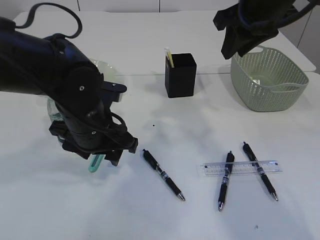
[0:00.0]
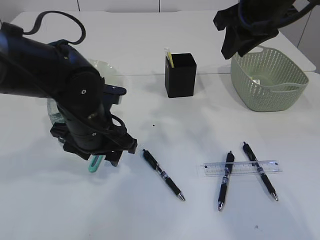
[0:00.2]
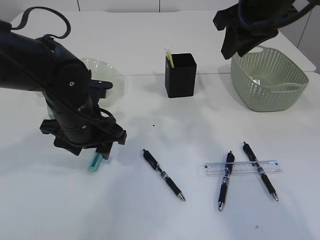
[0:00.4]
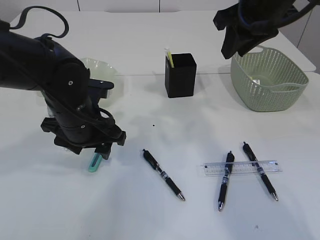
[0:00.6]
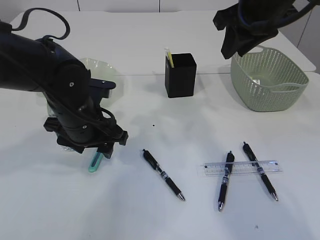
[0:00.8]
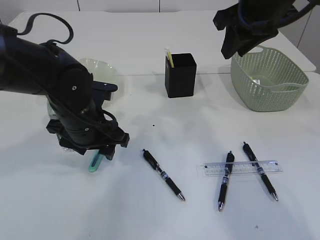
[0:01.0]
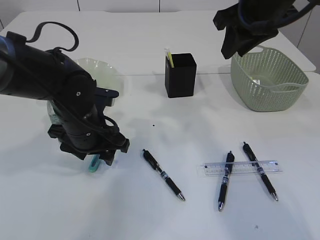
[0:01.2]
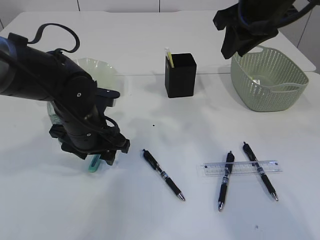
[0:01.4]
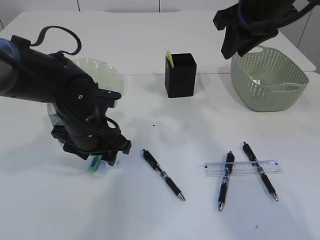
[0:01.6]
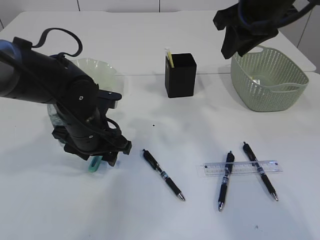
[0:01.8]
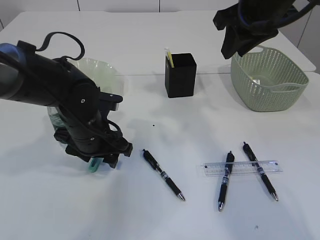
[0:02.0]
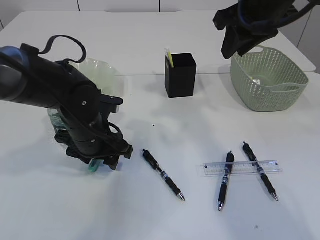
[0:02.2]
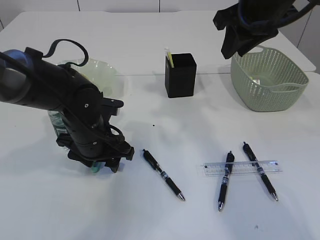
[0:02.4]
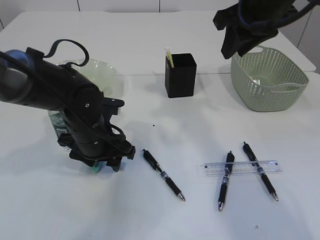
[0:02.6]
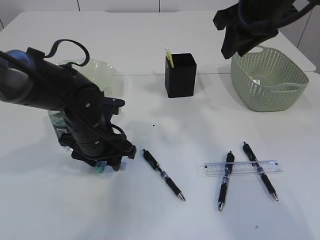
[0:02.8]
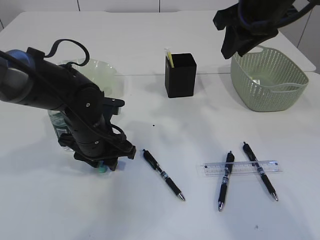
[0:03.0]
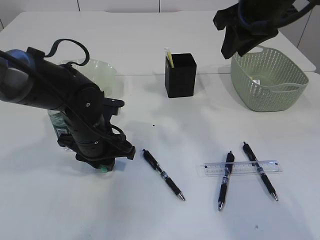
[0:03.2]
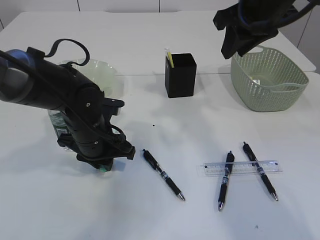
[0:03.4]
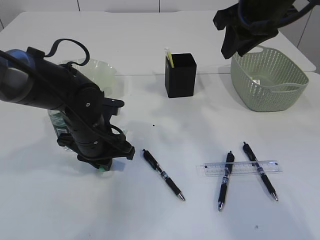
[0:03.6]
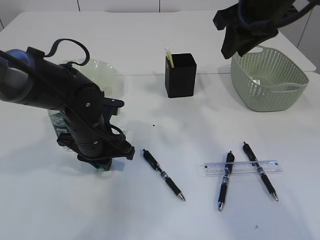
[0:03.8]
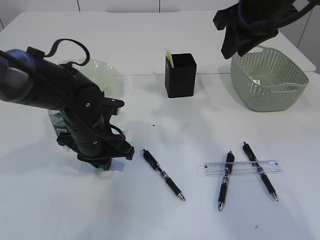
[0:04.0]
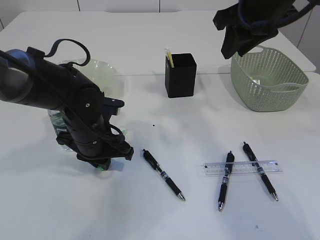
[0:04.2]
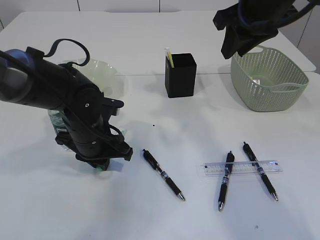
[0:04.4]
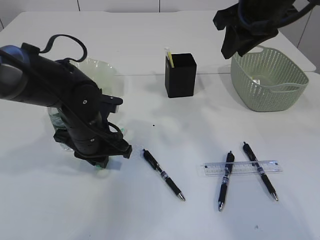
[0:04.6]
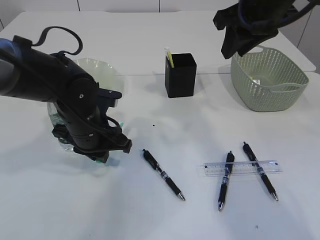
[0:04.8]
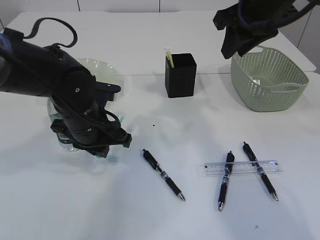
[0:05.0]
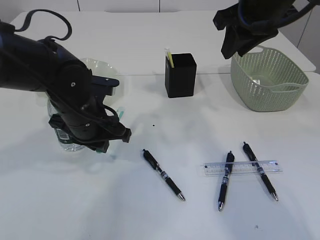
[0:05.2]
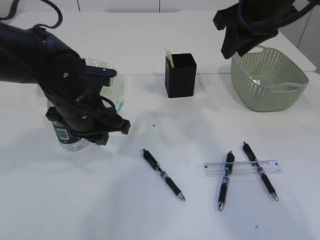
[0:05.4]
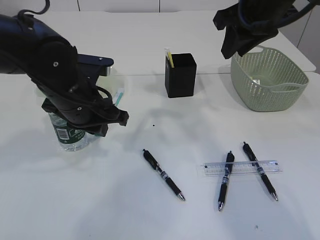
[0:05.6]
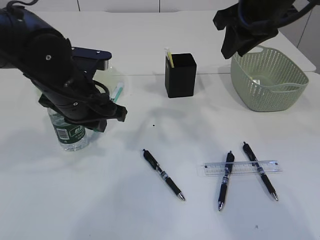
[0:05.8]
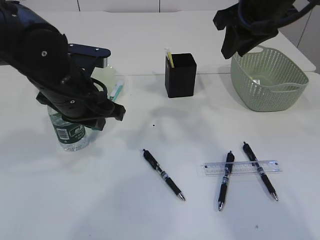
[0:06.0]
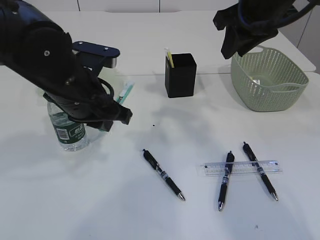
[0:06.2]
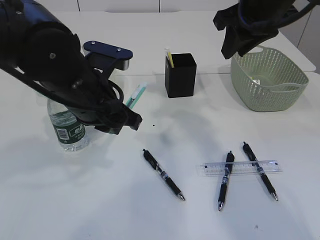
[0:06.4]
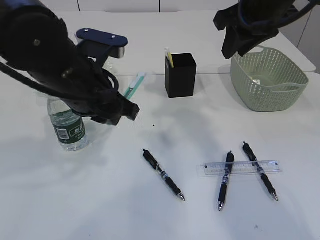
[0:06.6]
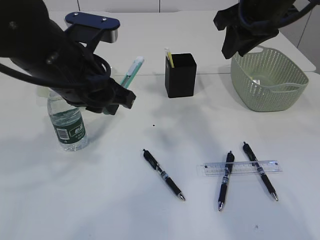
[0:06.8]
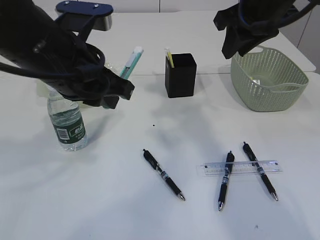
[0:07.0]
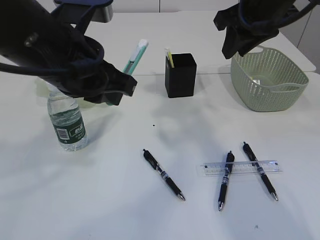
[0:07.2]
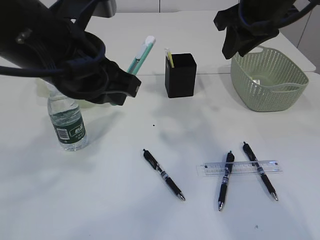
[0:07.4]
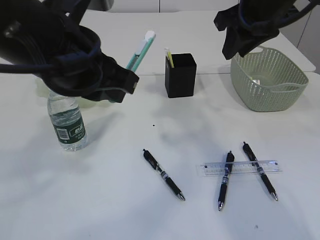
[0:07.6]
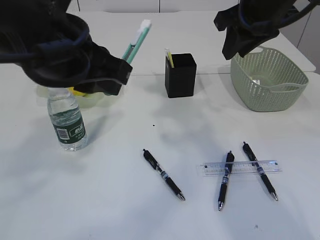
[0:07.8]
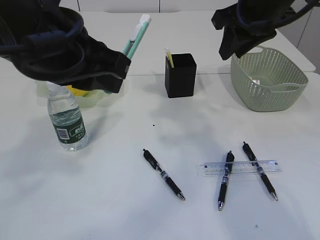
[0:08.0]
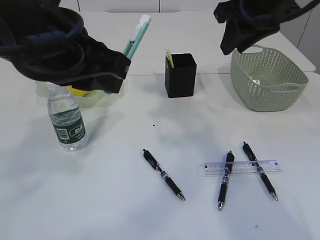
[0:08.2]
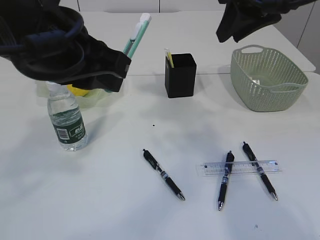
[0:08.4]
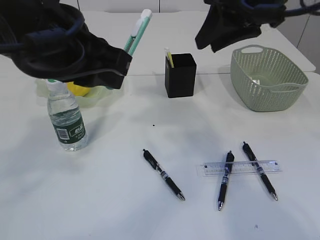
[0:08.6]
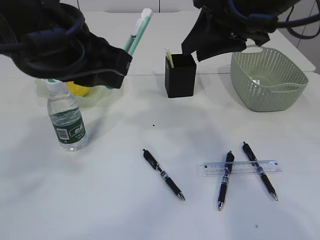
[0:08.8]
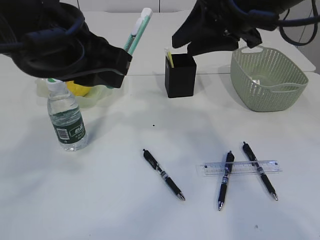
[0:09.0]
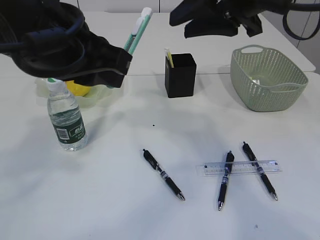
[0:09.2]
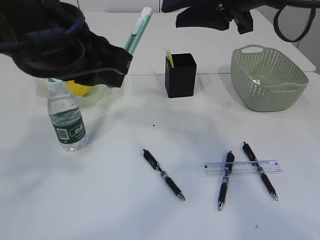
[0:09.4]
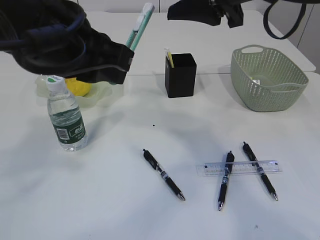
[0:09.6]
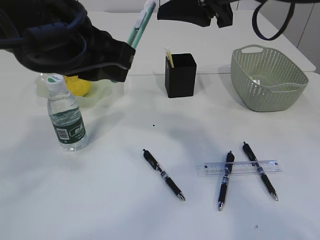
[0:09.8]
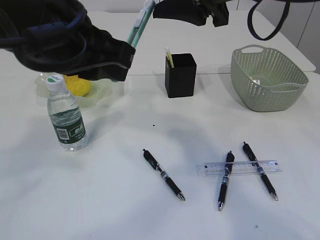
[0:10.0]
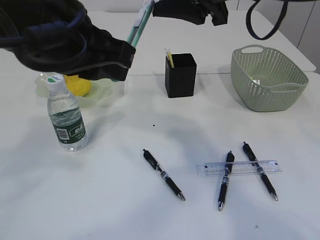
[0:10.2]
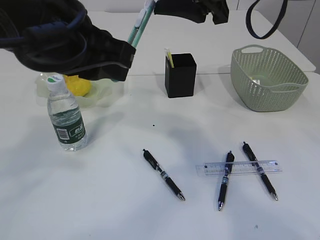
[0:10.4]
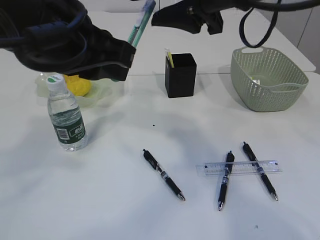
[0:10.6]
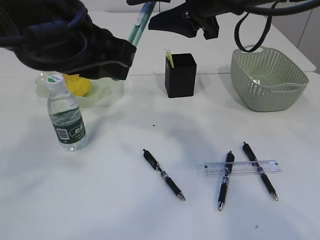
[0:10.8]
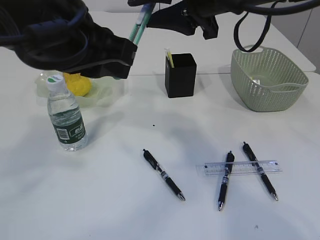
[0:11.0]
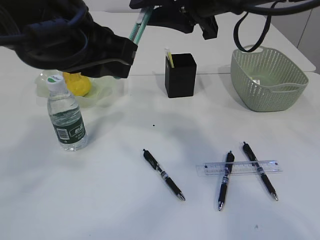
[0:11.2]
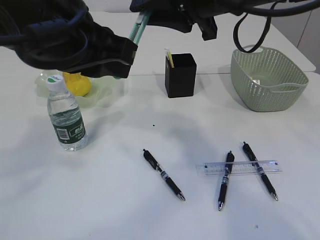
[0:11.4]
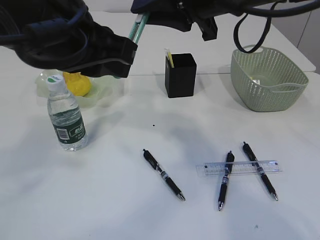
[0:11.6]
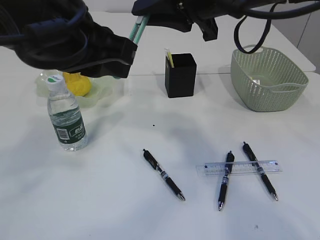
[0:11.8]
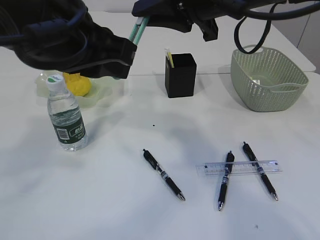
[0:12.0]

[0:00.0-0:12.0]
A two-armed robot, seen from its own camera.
Step, 0:00.0 to 0:05.0: pick up the blue knife.
0:00.0 to 0:03.0: The grippers make only small movements.
0:03.0 to 0:04.4: The left gripper closes its fingers.
0:04.4 to 0:06.0: The left gripper goes approximately 10 cm upward.
0:06.0 to 0:07.6: The left gripper moves upward and backward, roughly 15 cm.
0:07.6 to 0:09.0: The right gripper ends up roughly 5 cm from where it was.
0:10.4 to 0:12.0: The right gripper closes.

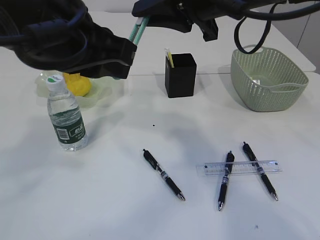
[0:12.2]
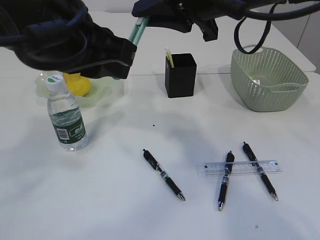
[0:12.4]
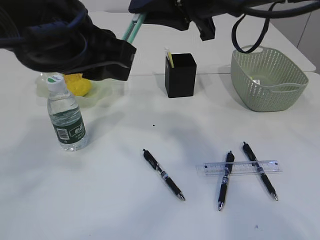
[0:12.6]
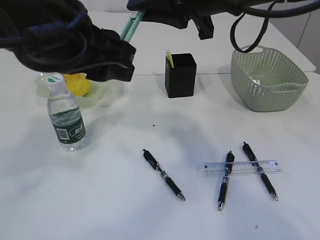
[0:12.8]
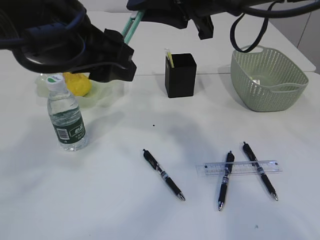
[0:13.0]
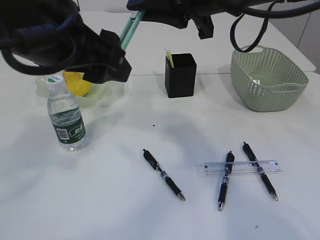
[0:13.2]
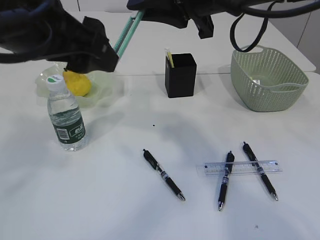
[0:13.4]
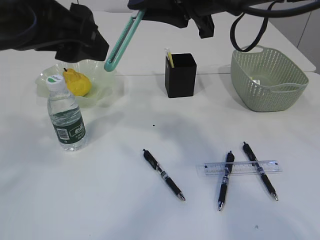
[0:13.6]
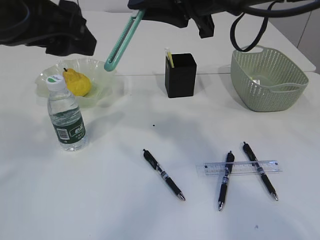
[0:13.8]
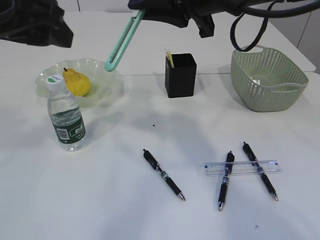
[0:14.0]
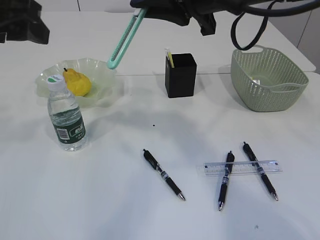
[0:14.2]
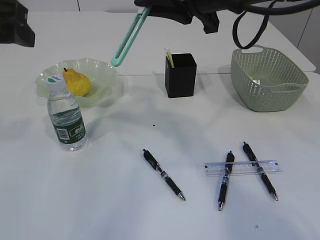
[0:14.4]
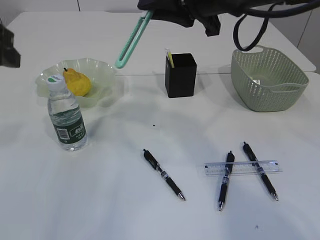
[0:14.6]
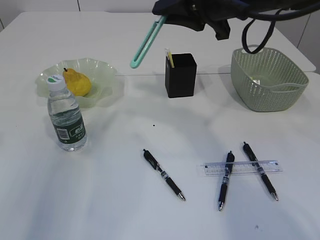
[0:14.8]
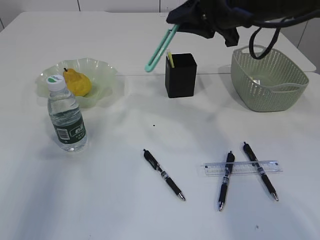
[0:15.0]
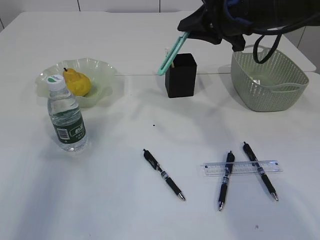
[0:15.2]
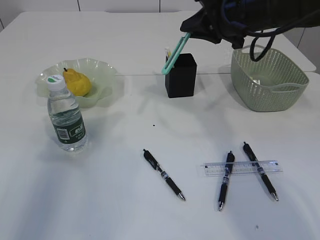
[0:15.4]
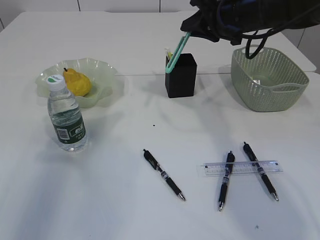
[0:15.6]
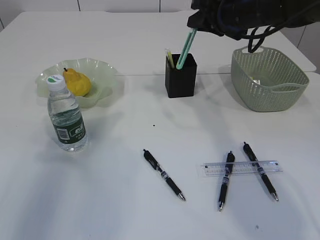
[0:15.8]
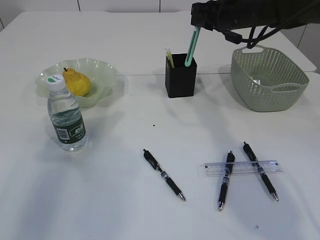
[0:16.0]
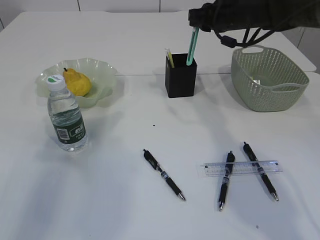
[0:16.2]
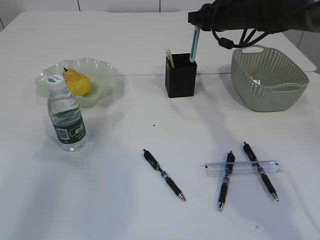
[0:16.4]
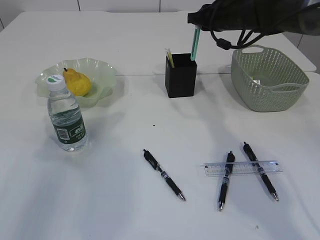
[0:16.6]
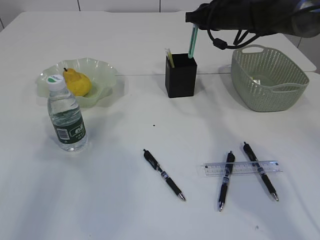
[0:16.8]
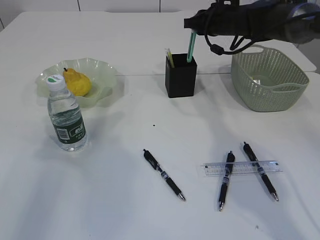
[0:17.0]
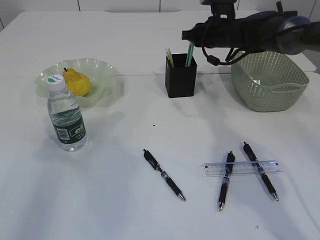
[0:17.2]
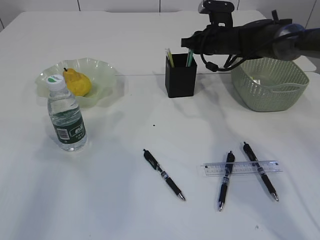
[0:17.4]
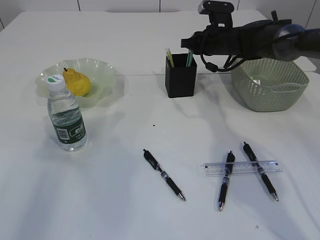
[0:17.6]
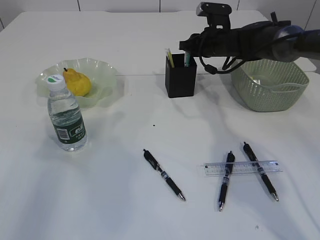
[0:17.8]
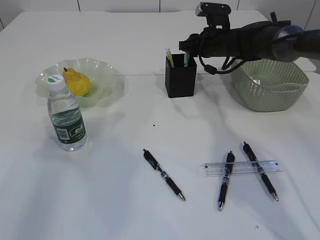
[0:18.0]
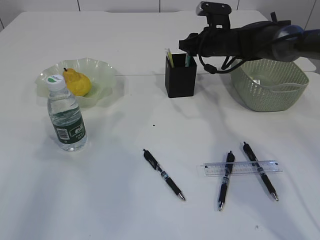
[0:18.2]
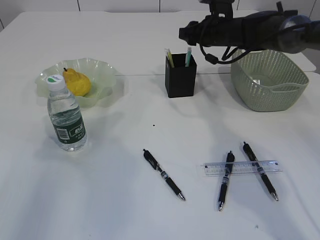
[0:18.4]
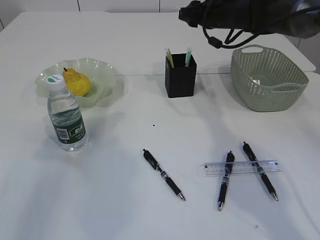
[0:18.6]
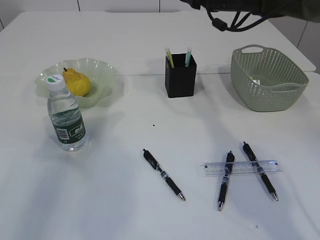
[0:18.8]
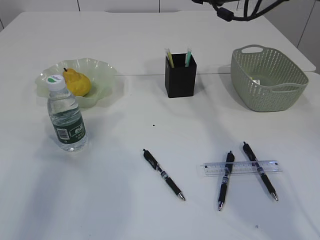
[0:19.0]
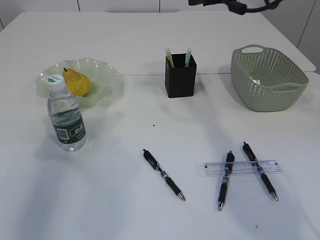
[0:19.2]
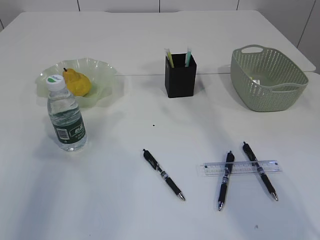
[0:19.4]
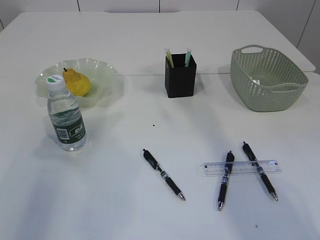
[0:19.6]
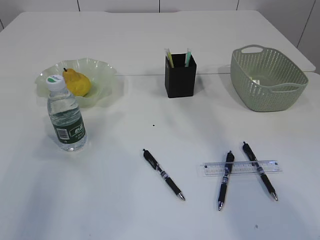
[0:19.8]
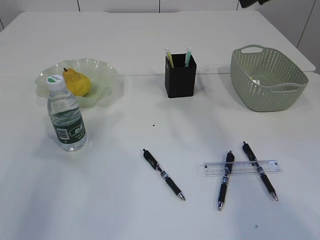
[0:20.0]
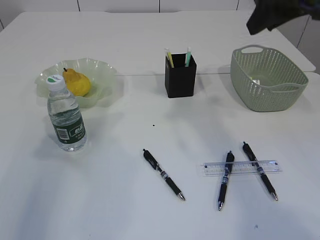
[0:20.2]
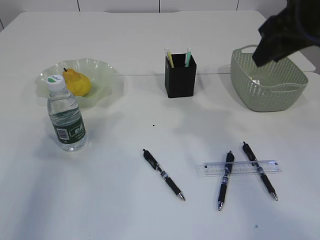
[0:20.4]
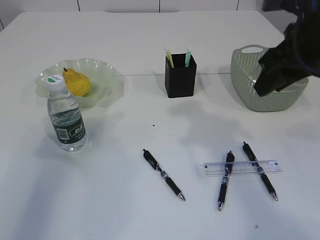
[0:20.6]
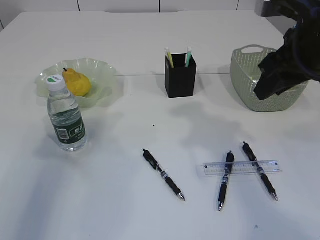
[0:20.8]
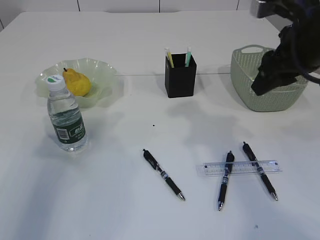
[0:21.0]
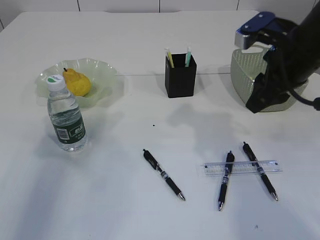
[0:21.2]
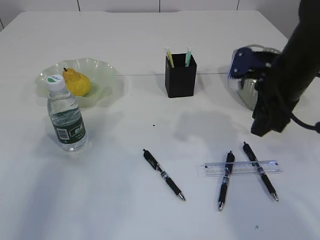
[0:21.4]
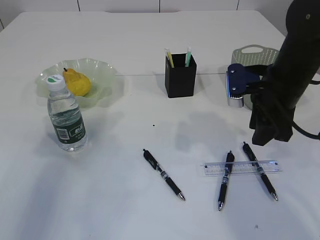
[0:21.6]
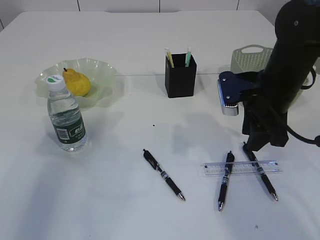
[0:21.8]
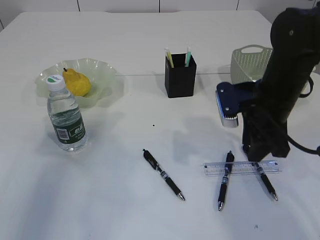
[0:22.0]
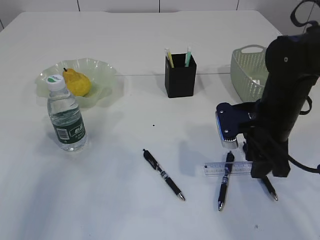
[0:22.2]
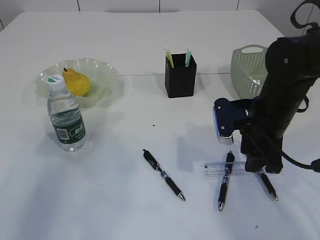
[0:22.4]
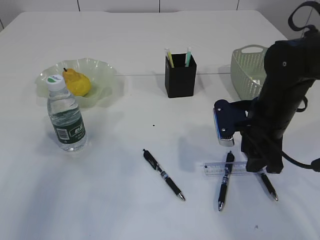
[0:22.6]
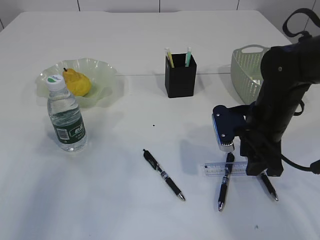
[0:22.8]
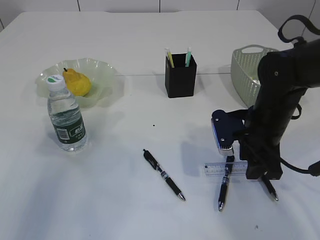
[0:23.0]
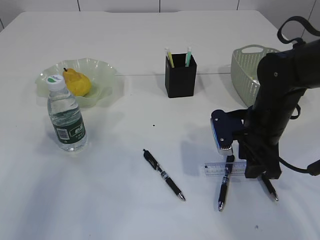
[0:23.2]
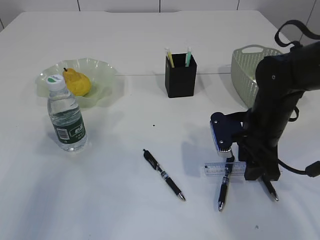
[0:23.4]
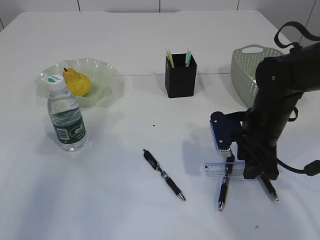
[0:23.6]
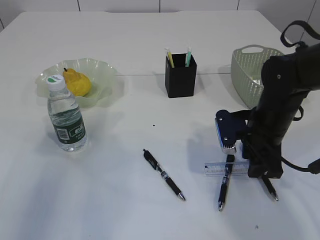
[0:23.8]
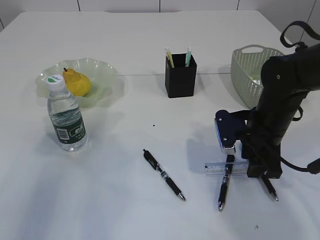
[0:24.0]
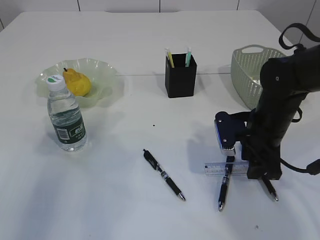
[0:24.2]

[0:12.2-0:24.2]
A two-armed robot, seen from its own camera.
Step, 0:13.8 to 0:18.2: Place the blue knife into the pen holder.
0:12.2 to 0:13.8: The left gripper moves about 5 cm, and opens.
0:13.8 to 0:15.2: The left gripper shifts some 15 cm to the left. Meanwhile the right gripper goes approximately 10 cm forward, to the right and downward.
0:15.2 to 0:16.6: The right gripper moves forward, approximately 10 cm.
0:16.6 to 0:18.2: The right gripper moves downward, some 5 cm, and opens its fingers.
0:18.2 to 0:19.8: The right gripper shifts about 30 cm upward and backward.
0:19.8 to 0:21.2: The right gripper shifts some 15 cm downward.
0:21.2 to 0:22.6: The right gripper is displaced downward by about 10 cm.
0:22.6 to 0:24.2: The grippers make only small movements.
